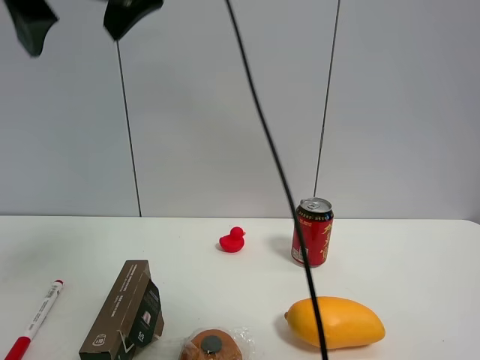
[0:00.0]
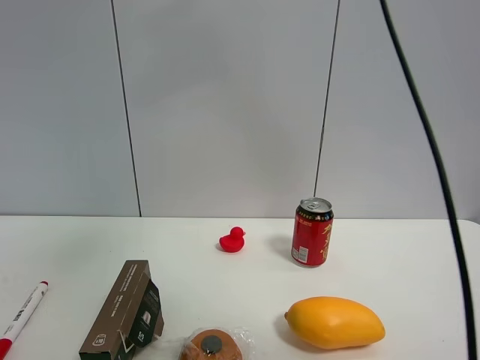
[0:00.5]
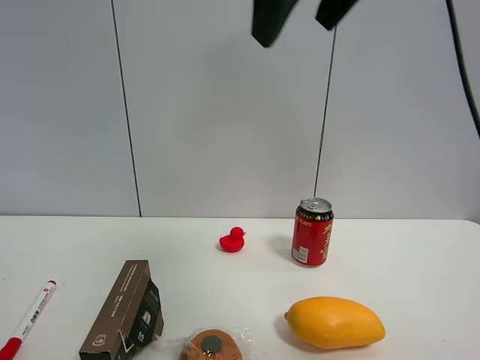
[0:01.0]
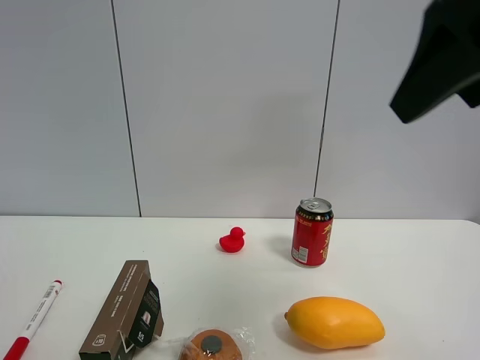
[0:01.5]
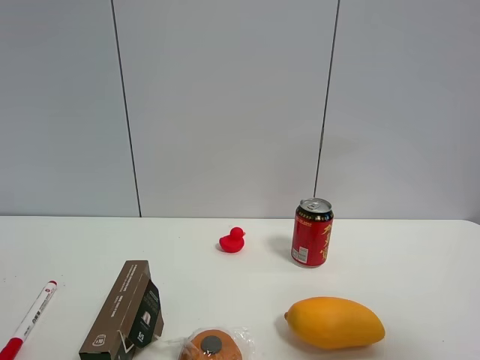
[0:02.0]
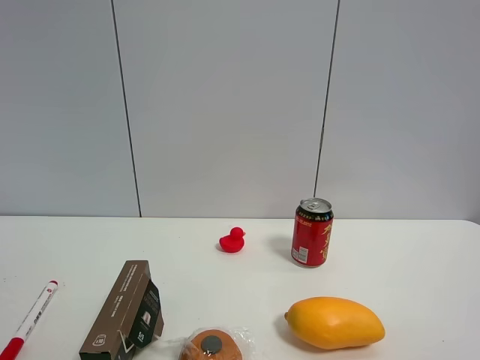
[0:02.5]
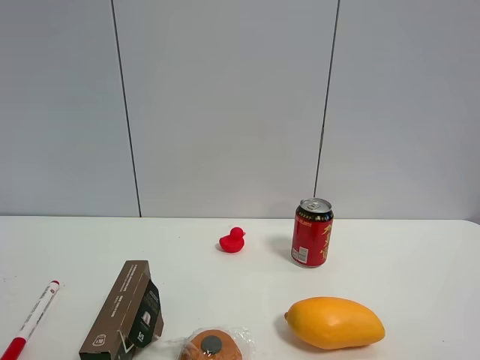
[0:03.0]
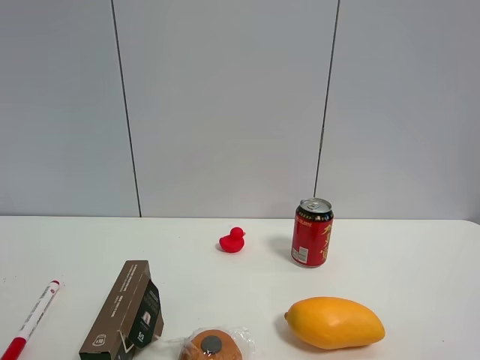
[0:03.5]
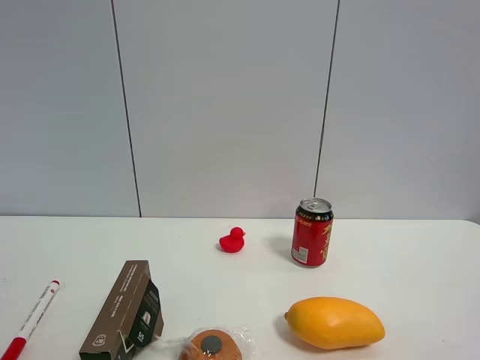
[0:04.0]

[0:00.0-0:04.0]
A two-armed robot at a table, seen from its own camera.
Task of the whole recording: the gripper move the object.
0:00.0 to 0:02.0: The right gripper shifts approximately 40 cm to the right and backward.
0:02.0 to 0:04.0: The right gripper moves backward and downward, approximately 10 cm.
